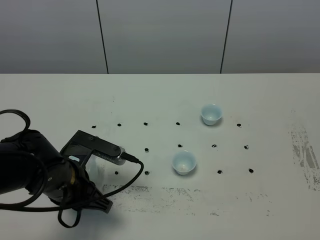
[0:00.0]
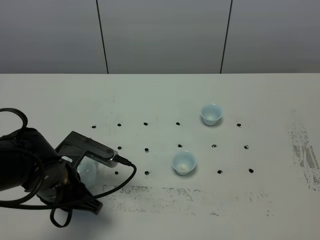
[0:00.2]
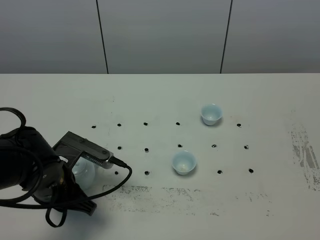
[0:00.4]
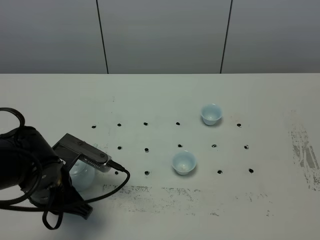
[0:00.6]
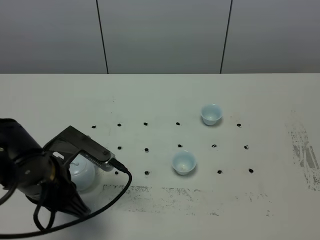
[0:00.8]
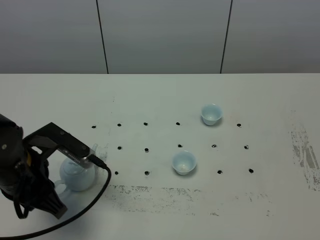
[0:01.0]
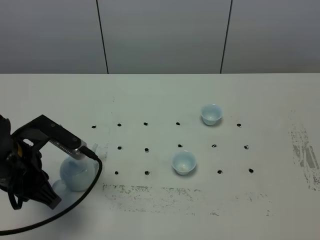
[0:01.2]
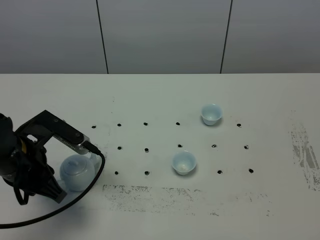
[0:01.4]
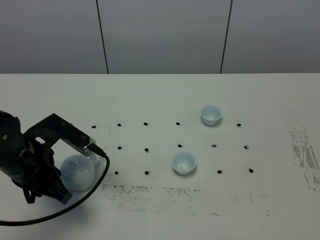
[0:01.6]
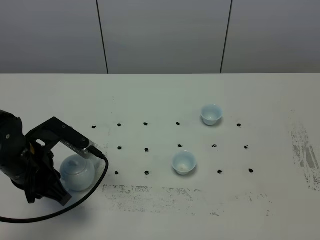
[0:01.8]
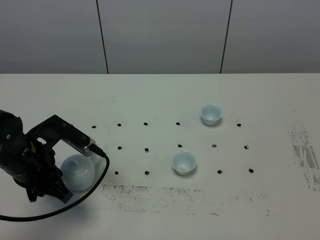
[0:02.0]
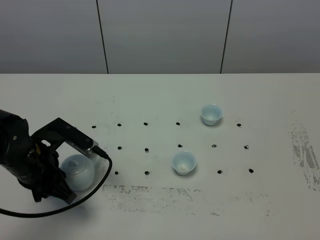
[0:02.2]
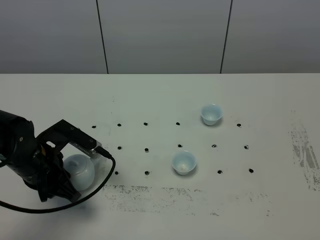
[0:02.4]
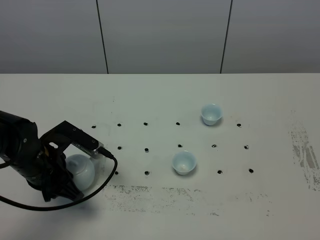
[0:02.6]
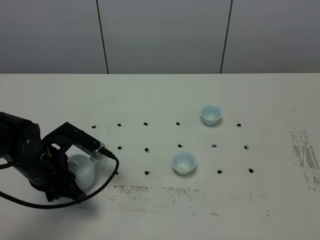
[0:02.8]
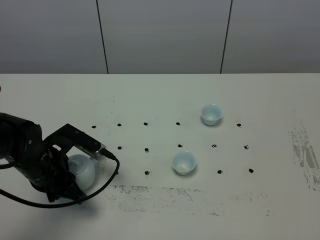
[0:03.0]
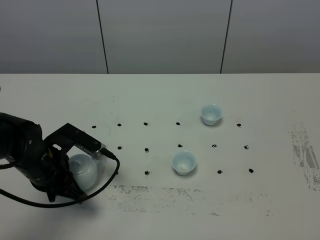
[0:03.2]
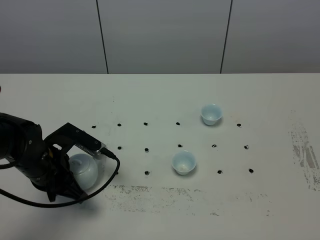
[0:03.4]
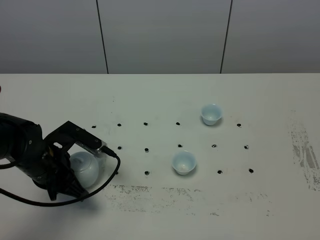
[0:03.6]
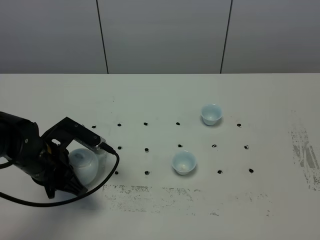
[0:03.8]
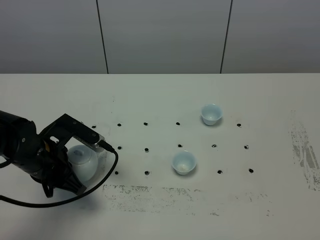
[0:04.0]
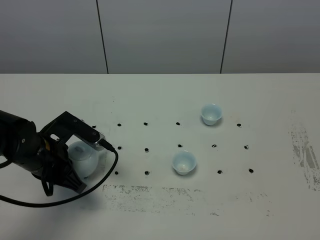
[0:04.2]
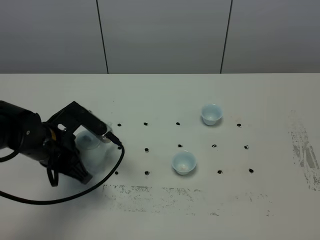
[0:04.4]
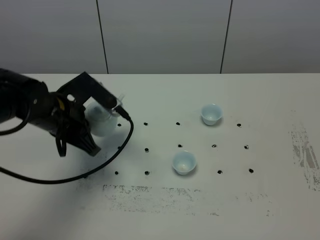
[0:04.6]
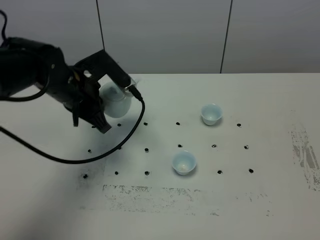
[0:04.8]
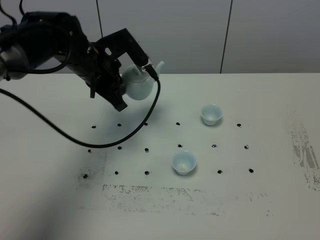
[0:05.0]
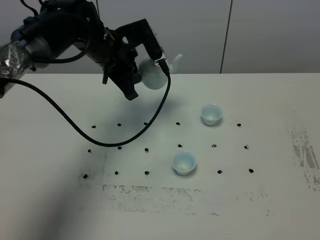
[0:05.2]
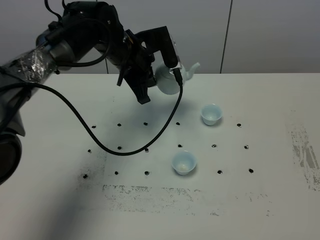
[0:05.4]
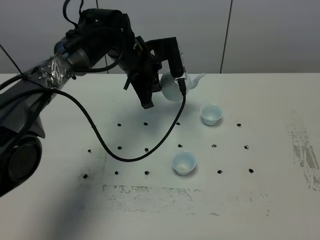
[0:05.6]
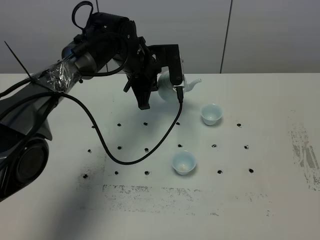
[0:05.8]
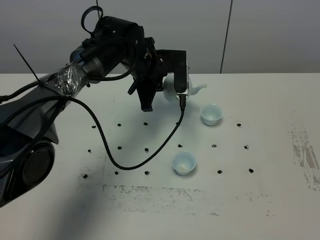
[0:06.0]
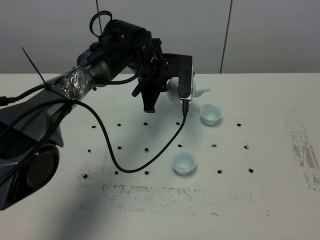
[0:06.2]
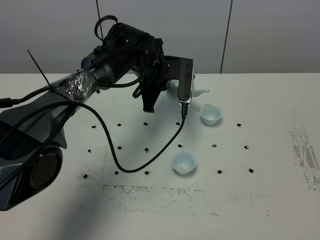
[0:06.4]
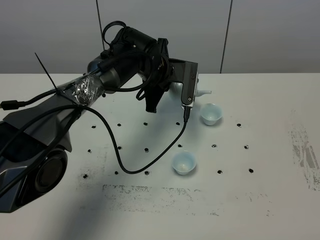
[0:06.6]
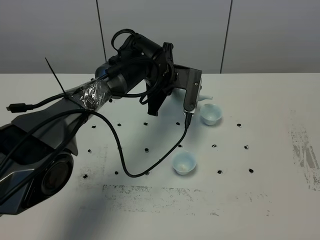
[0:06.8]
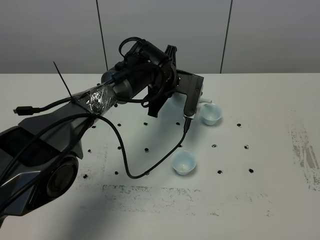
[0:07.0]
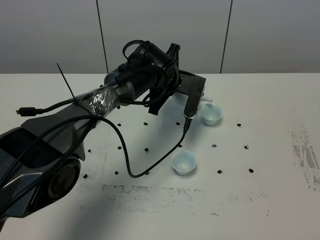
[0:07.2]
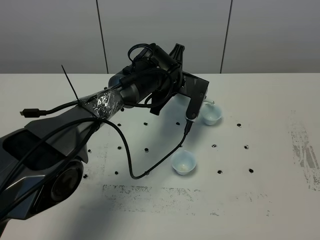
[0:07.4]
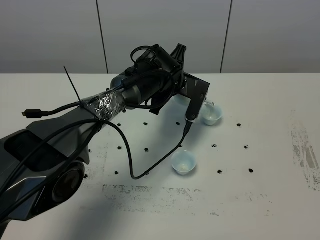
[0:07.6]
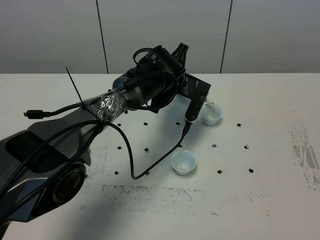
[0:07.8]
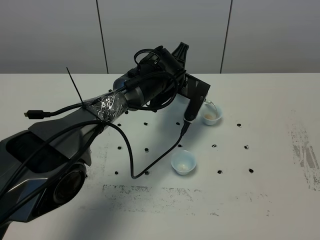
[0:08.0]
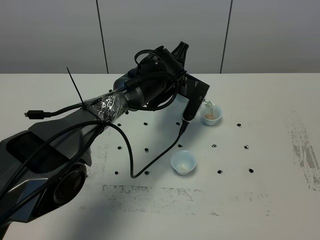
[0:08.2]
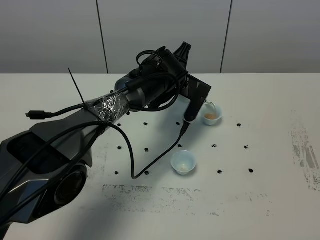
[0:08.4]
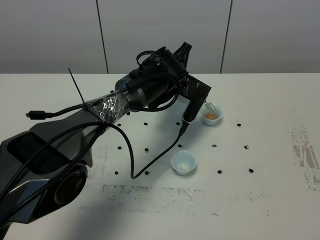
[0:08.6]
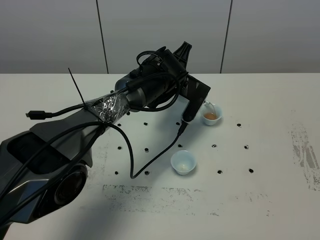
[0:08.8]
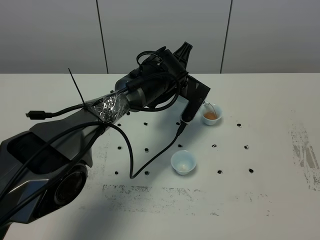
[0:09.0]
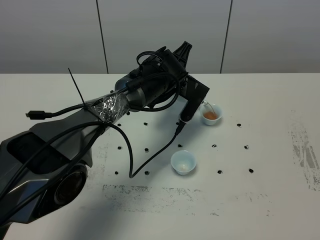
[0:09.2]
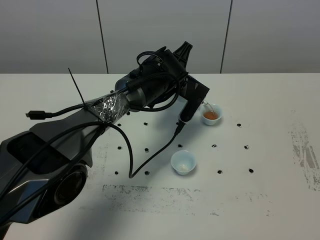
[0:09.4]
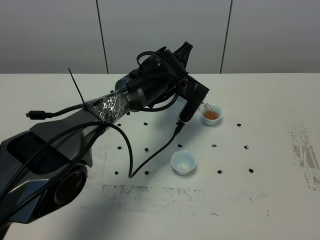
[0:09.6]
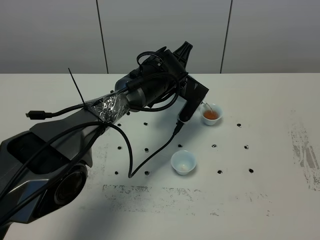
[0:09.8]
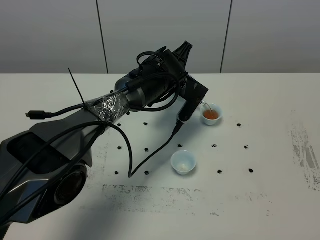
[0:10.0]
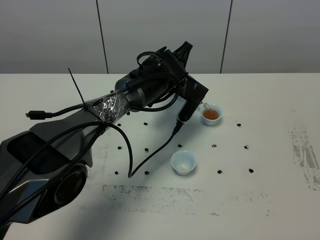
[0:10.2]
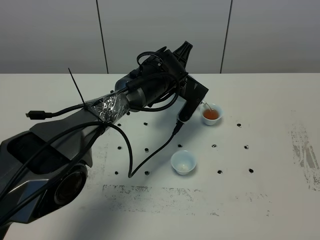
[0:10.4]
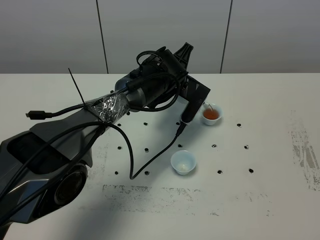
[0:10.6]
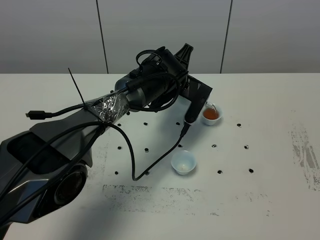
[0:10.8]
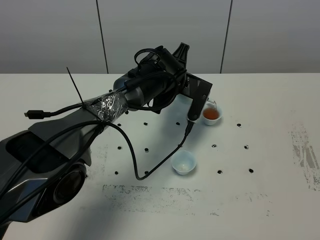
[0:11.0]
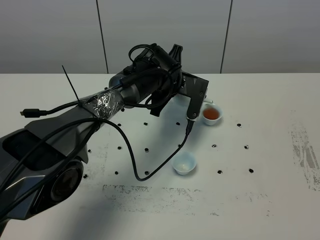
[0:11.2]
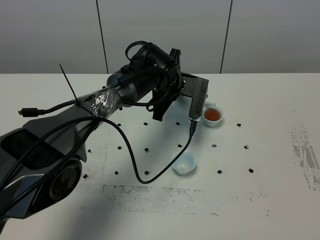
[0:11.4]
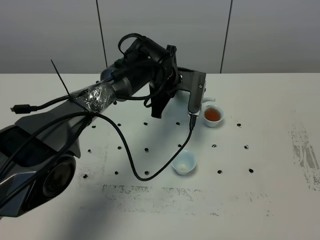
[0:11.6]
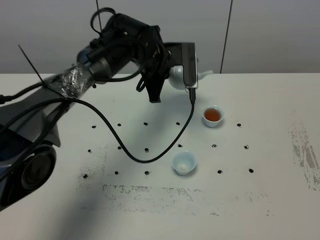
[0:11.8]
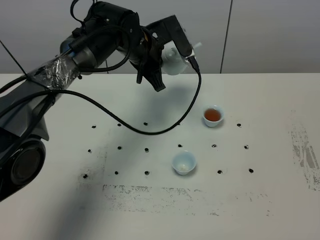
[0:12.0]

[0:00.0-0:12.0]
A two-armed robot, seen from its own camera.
Task of the whole recording: grasp the blue porcelain teapot and pour the tea into the two blue porcelain teacups one by one, put the blue porcelain teapot back in its original place.
Step, 0:00.0 to 0:04.2: Pick up the teapot with the left gripper.
0:00.0 to 0:01.6: The left gripper moves to the left, roughly 5 cm.
0:01.6 to 0:03.0: The left gripper changes place by roughly 5 cm.
0:03.0 to 0:04.4: There are only small adjustments of the grippers.
0:04.4 to 0:06.0: The left gripper is displaced forward and to the right by about 25 cm.
0:06.0 to 0:07.6: The left gripper heads to the right, covering some 5 cm.
0:07.6 to 0:09.0: There are only small adjustments of the grippers.
0:09.0 to 0:10.4: Neither gripper changes place.
0:10.4 to 0:12.0: The left gripper moves to the left and upward, roughly 10 cm.

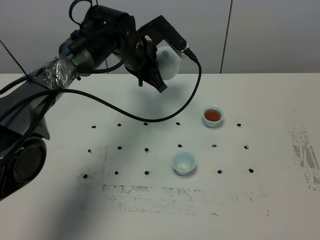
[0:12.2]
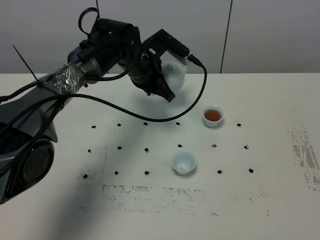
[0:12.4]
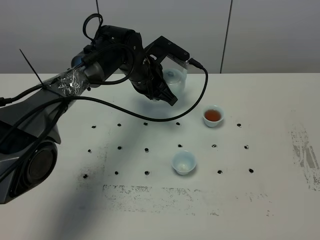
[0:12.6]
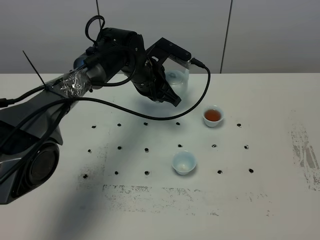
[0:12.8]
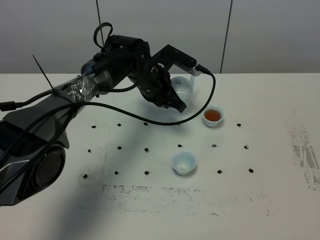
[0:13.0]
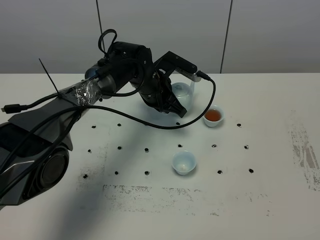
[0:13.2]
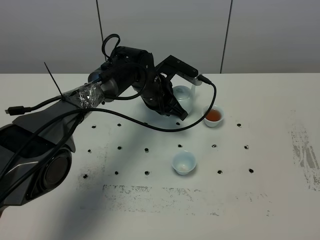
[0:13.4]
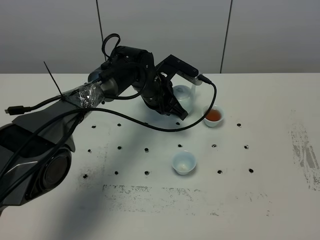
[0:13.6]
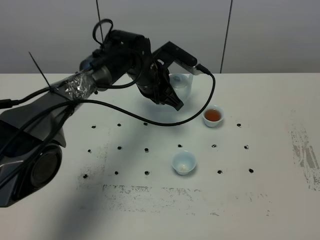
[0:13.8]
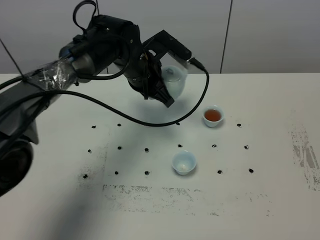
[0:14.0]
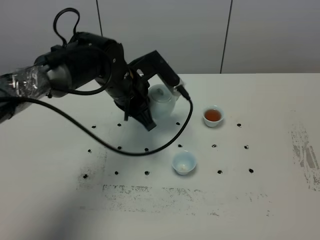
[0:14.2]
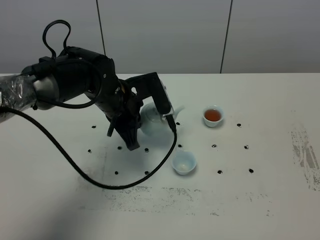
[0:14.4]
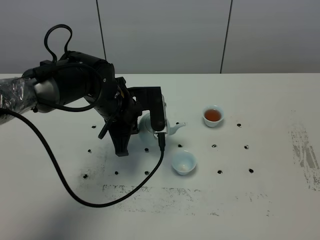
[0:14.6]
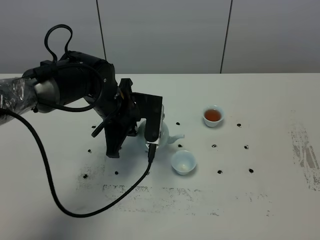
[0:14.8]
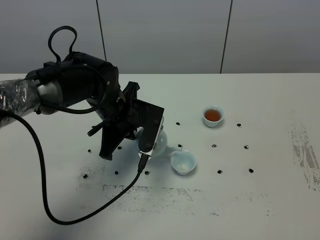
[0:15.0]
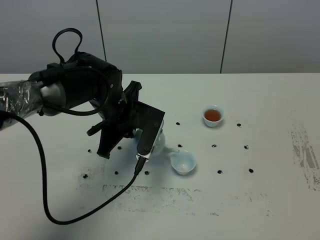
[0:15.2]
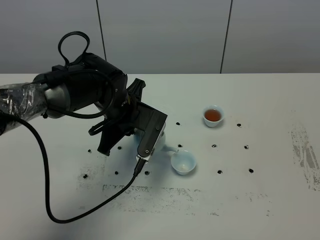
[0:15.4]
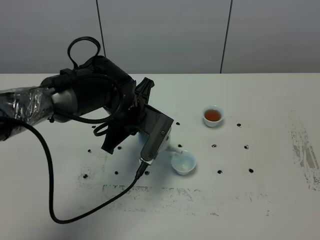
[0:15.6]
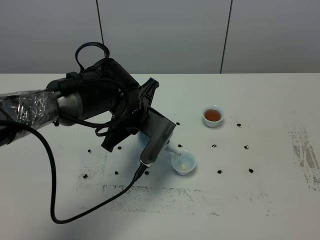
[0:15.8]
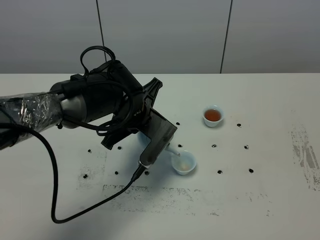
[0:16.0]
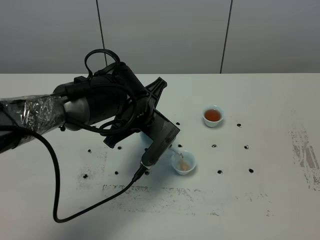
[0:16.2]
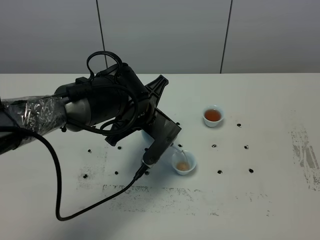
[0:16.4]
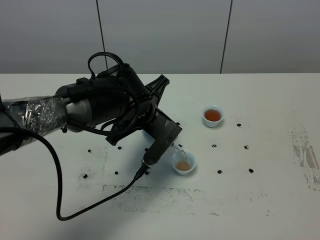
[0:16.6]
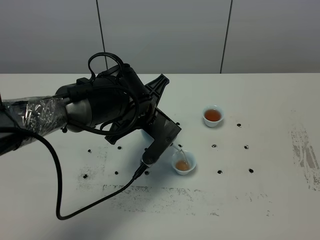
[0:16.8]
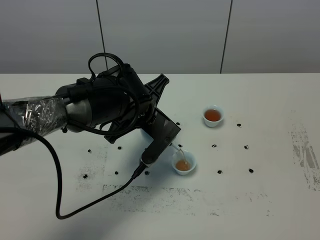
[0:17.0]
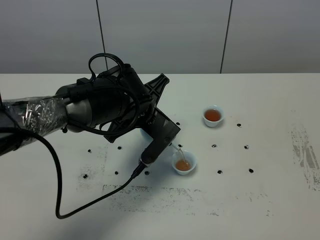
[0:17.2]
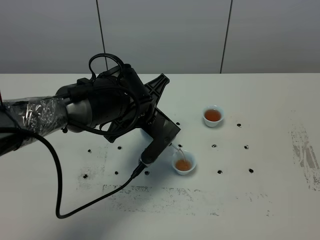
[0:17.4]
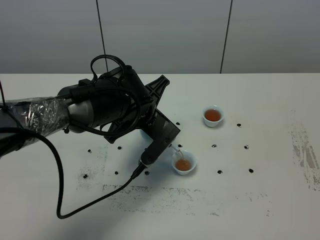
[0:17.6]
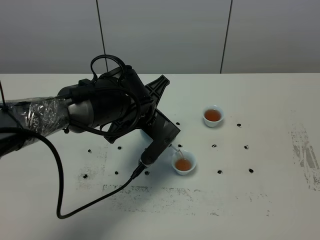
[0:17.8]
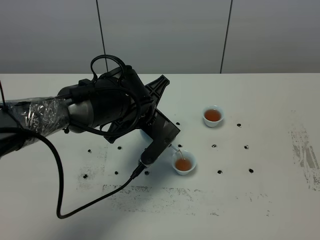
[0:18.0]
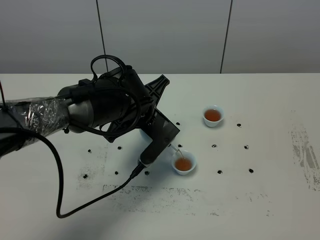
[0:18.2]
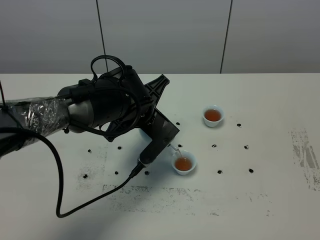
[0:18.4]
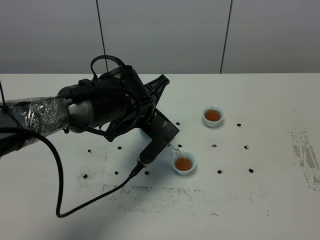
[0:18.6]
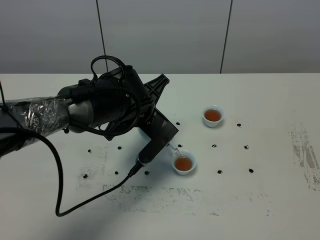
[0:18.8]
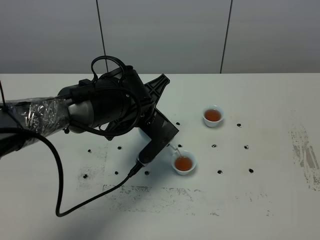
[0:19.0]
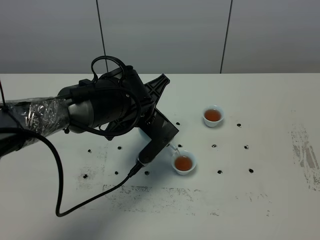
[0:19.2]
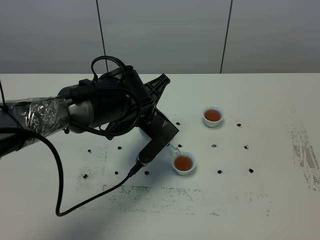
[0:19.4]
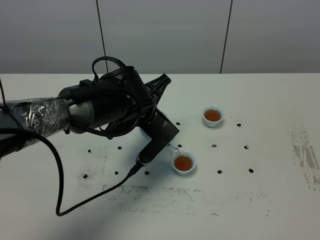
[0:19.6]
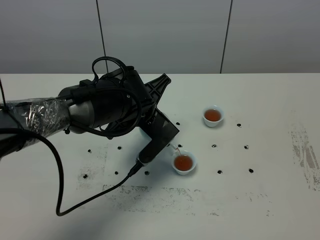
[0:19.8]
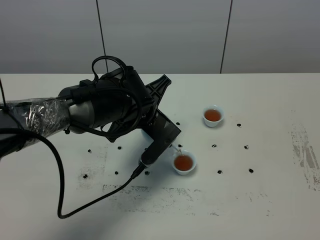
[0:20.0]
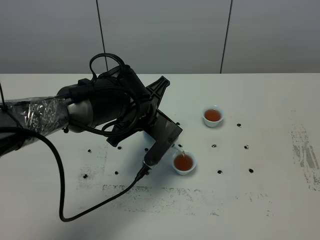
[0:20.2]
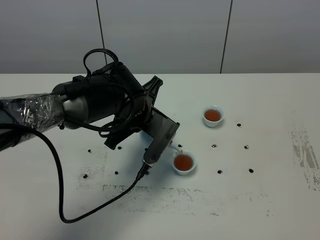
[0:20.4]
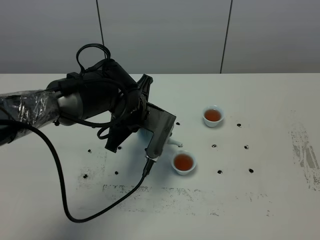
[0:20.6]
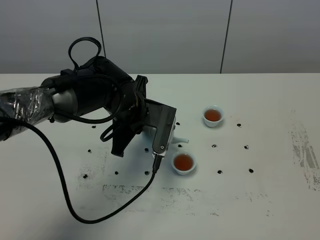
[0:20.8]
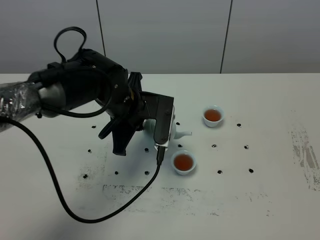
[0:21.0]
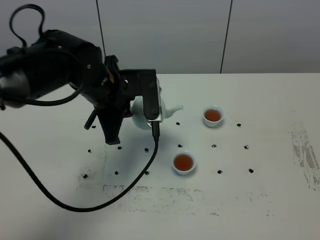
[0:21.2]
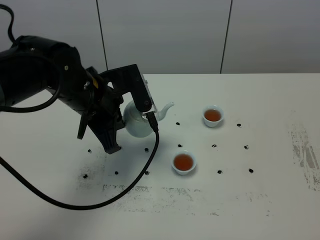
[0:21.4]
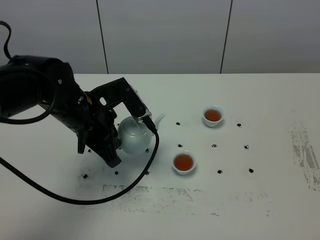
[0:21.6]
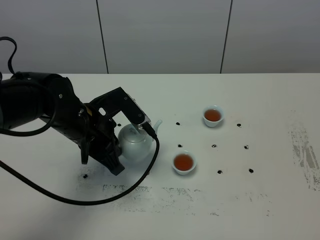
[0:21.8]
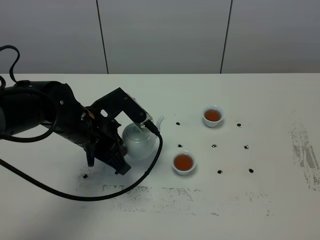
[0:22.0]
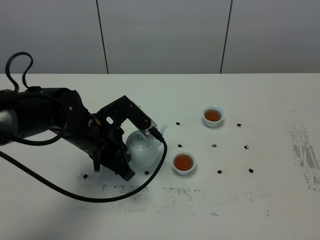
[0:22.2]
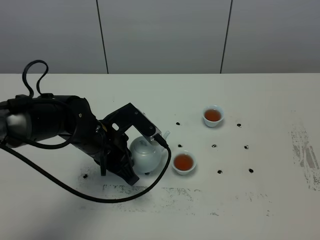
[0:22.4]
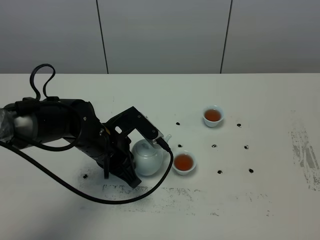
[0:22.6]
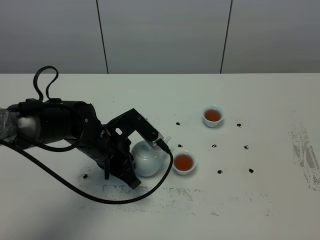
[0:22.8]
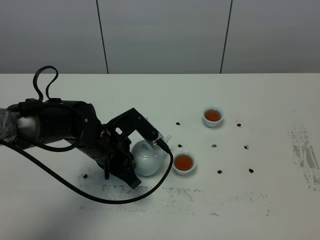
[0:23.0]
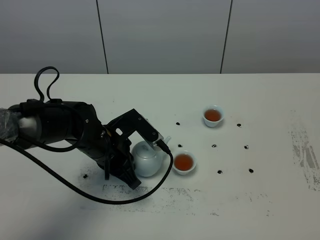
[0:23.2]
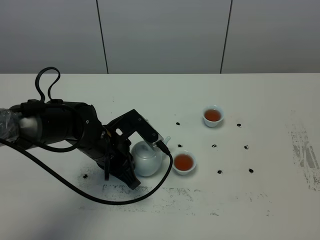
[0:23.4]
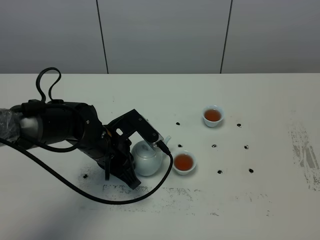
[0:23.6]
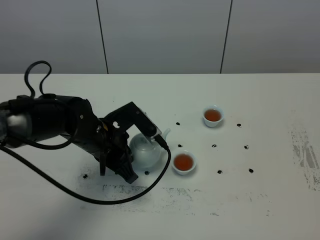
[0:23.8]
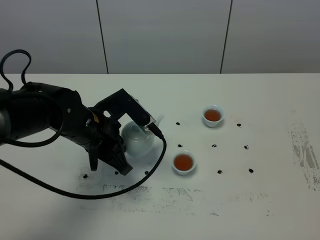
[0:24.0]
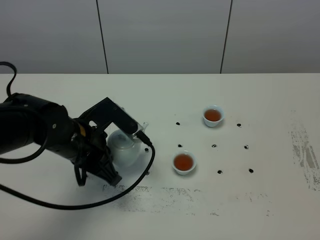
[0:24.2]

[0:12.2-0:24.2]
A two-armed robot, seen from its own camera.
Task of the whole recording: grasp the blue porcelain teapot and pour the tea into the two blue porcelain teacups one by one, put the blue porcelain teapot back in its original place.
Step, 0:12.2 to 0:20.6: Pour tea into the teacup with the left gripper.
0:12.2 to 0:13.8: The left gripper reaches approximately 10 cm downward, then returns.
0:13.8 to 0:15.2: The left gripper is displaced backward by some 10 cm.
0:16.6 to 0:18.2: The two grippers keep their place.
0:18.2 to 0:19.8: Both grippers stay put.
0:19.8 to 0:21.2: The left gripper shifts about 10 cm to the left and upward.
0:21.2 to 0:22.6: The left gripper goes about 10 cm downward.
0:22.6 to 0:24.2: The left gripper ends up approximately 5 cm from where it was.
